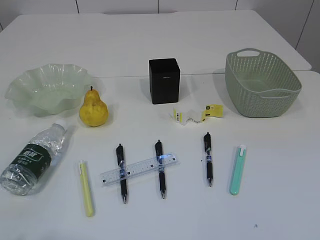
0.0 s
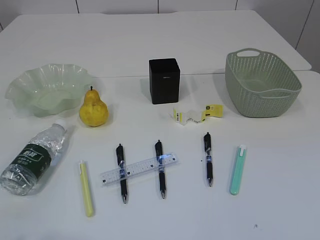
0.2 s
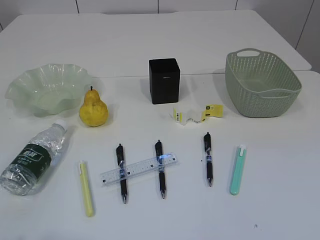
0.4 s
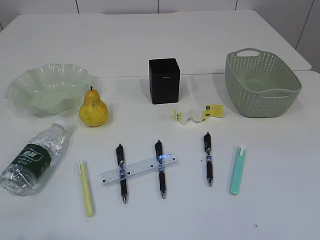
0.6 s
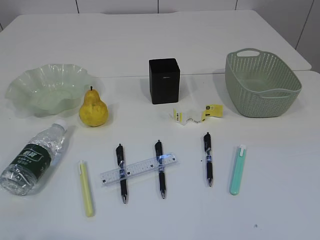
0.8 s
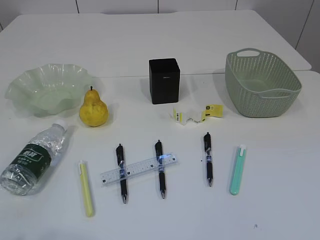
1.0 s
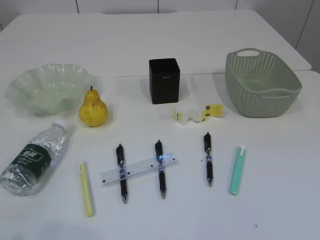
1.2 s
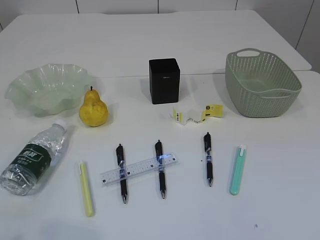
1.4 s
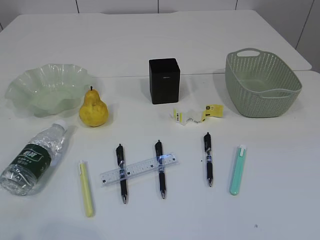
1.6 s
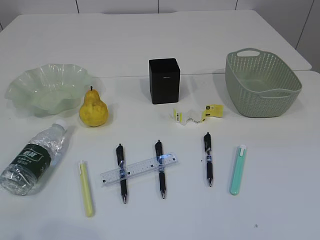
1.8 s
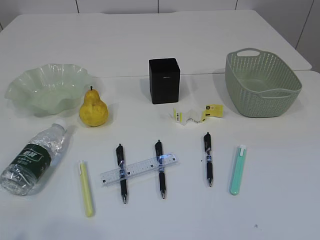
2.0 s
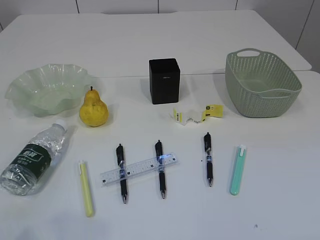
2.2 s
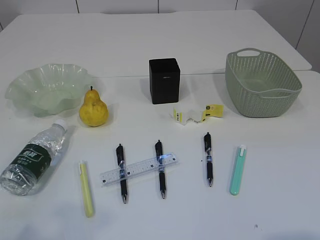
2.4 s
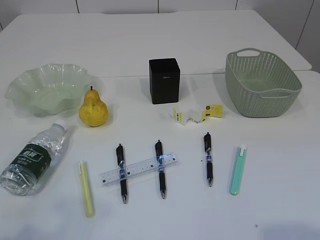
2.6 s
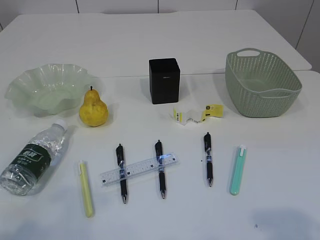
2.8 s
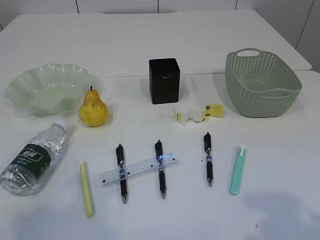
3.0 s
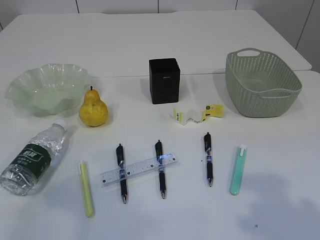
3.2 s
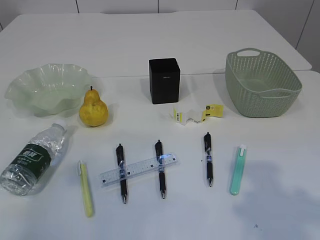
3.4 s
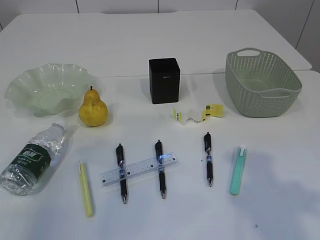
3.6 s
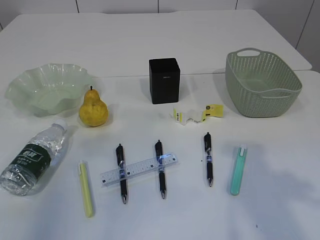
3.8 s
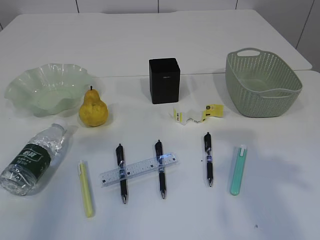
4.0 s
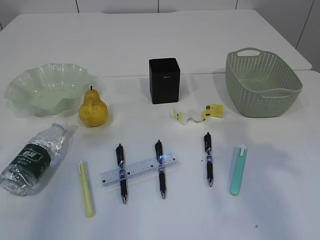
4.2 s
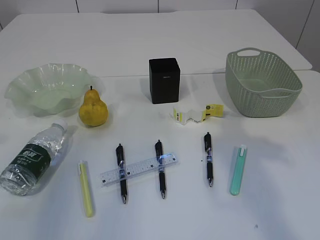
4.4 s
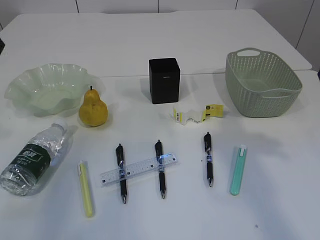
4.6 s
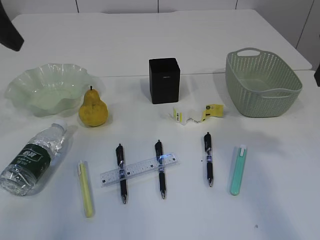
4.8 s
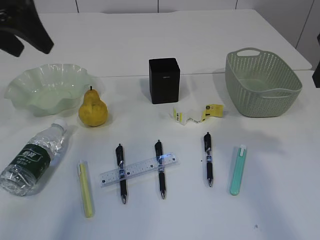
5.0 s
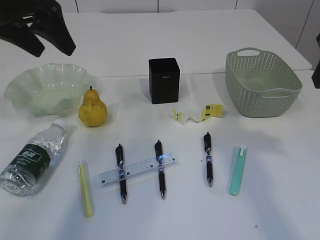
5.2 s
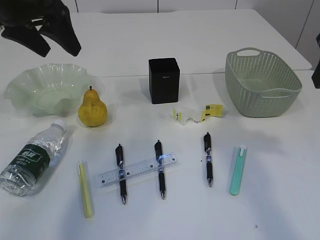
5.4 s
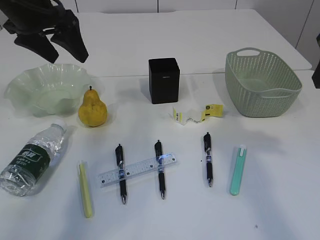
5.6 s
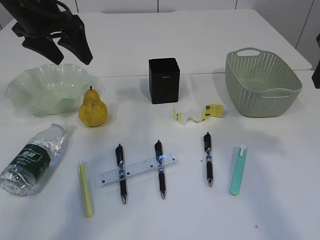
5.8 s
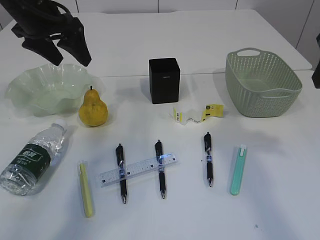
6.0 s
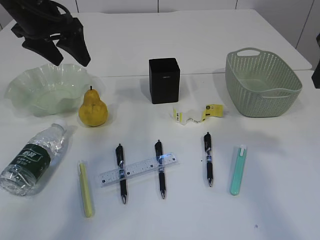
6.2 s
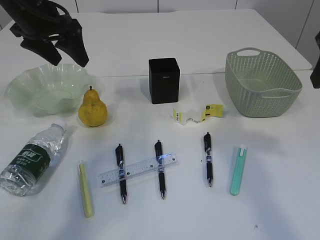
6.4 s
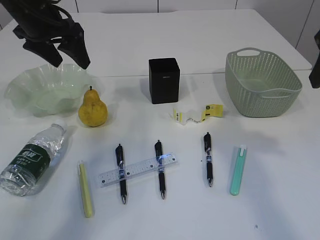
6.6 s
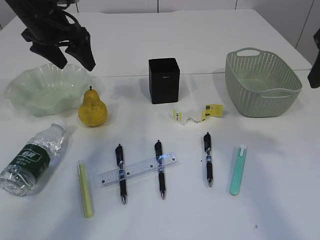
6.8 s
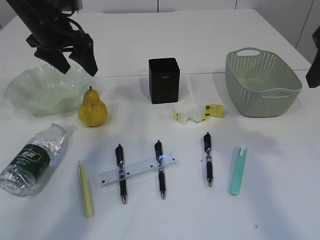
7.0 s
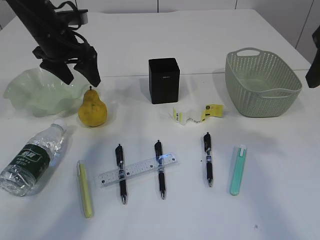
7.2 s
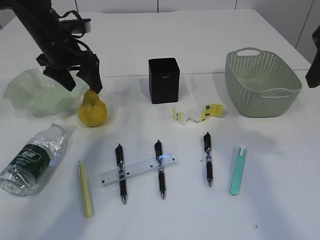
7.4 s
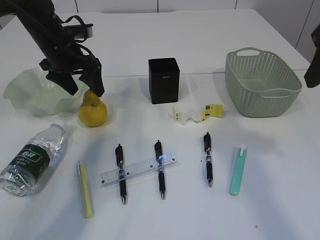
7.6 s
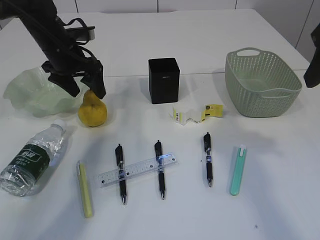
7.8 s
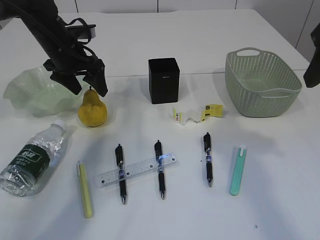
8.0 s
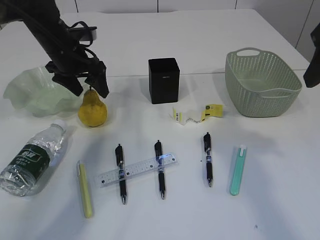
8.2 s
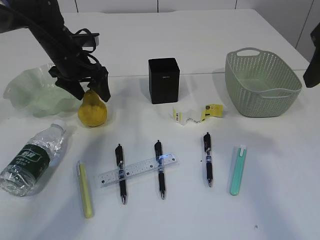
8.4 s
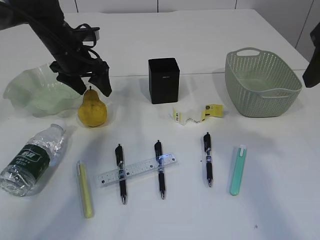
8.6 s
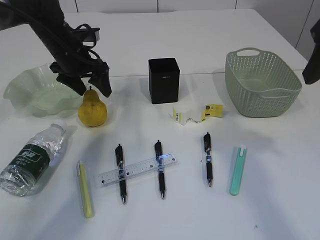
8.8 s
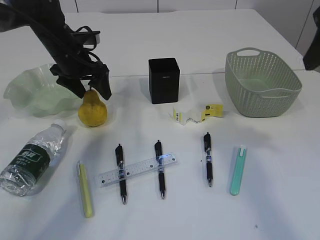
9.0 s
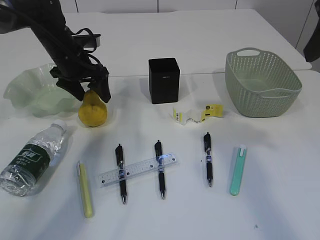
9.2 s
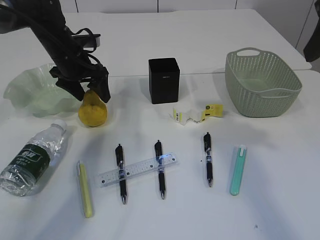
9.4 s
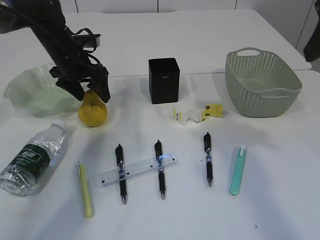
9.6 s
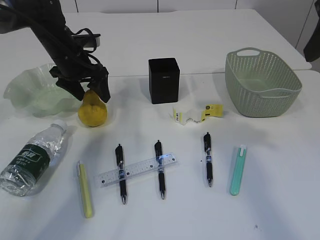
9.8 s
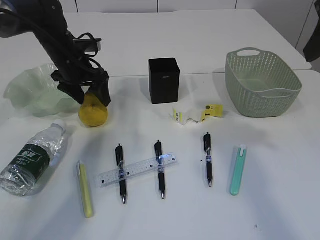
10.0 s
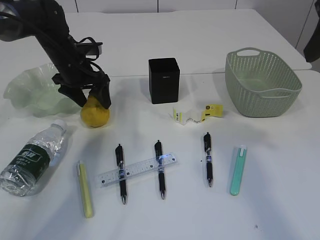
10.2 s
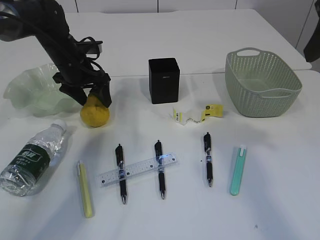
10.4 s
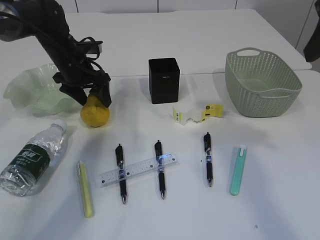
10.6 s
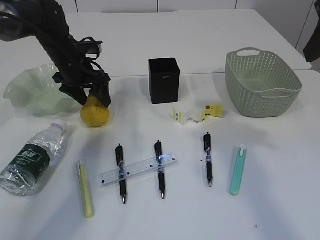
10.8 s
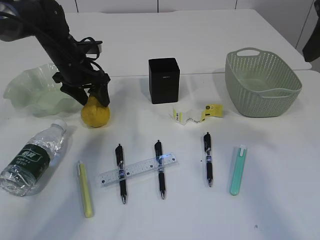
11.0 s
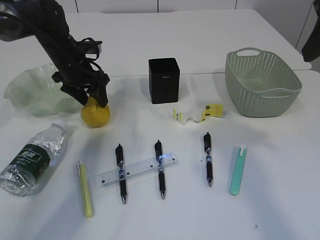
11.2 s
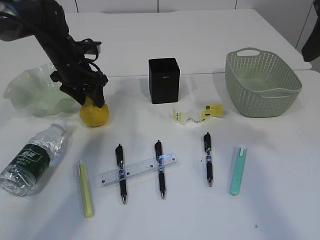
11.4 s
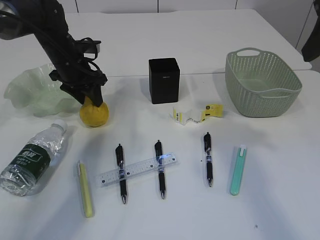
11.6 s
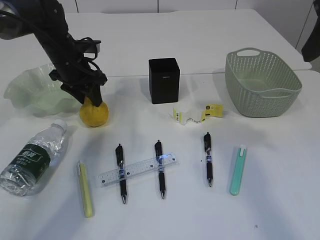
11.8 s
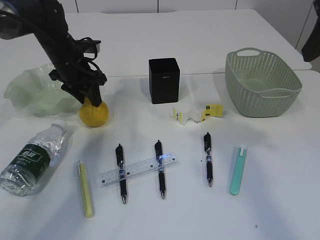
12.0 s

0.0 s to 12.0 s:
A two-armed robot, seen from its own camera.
1.6 to 3.0 s: The grippers both shift forward by some 5 cm.
3.0 to 4.4 s: The right gripper goes about 15 cm forward. Meanwhile the left gripper is displaced forward and upward by some 20 cm.
4.4 to 6.0 s: The left gripper moves forward, downward and to the right, roughly 20 cm.
6.0 to 7.6 s: The left gripper heads downward, covering roughly 10 cm.
7.6 to 10.4 s: The grippers make only small movements.
10.4 to 12.0 s: The left gripper closes up.

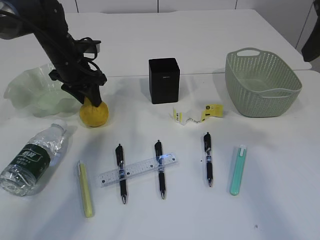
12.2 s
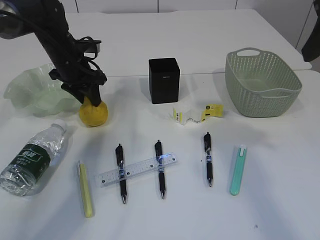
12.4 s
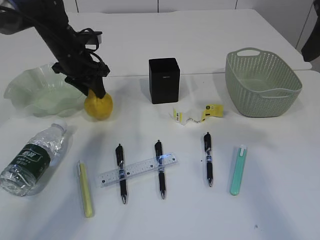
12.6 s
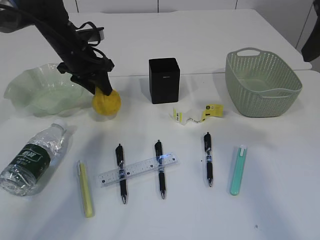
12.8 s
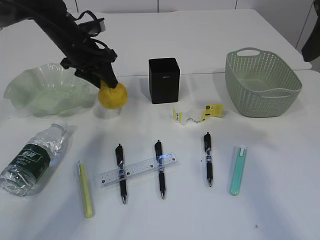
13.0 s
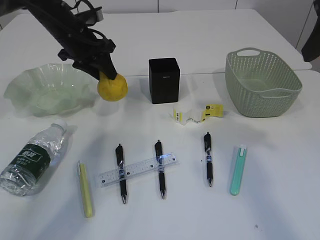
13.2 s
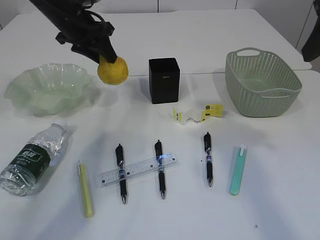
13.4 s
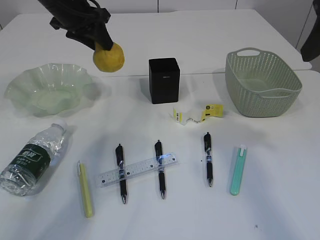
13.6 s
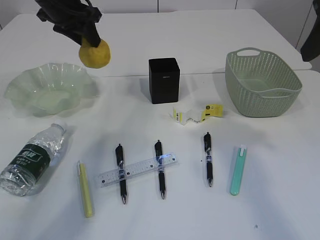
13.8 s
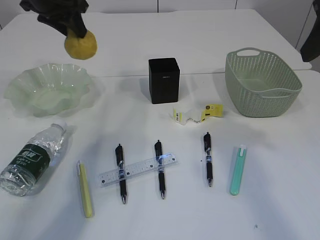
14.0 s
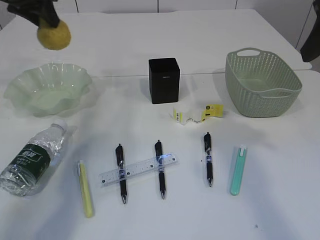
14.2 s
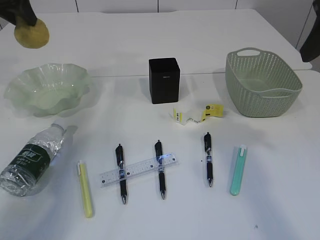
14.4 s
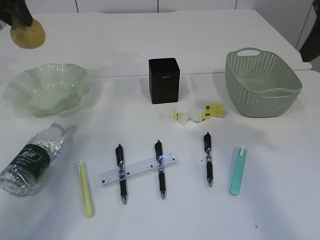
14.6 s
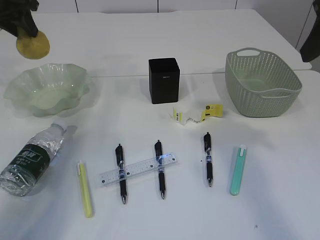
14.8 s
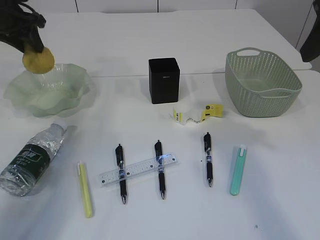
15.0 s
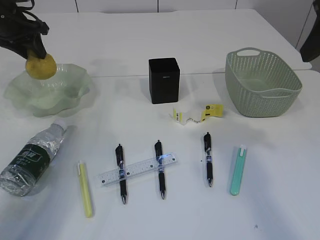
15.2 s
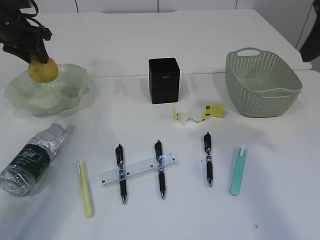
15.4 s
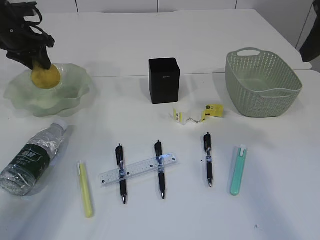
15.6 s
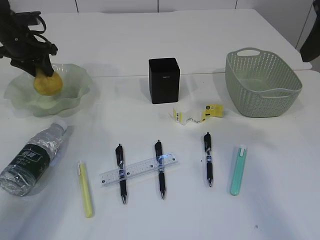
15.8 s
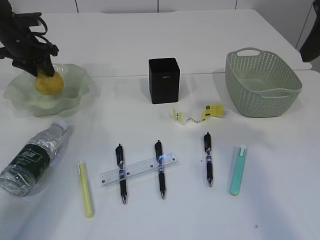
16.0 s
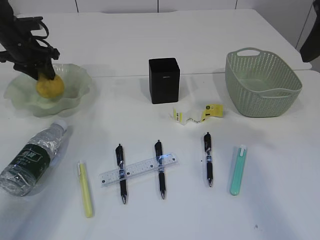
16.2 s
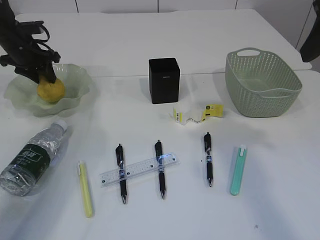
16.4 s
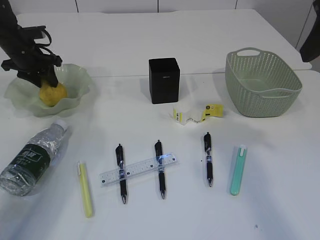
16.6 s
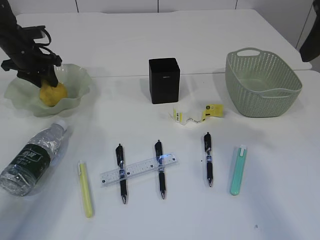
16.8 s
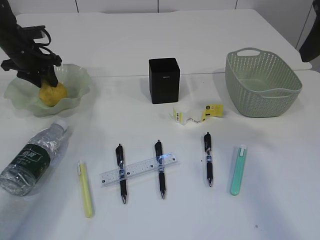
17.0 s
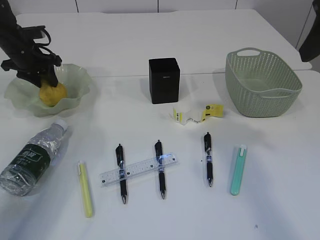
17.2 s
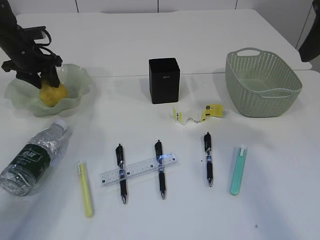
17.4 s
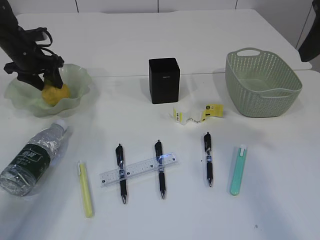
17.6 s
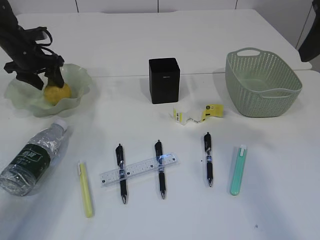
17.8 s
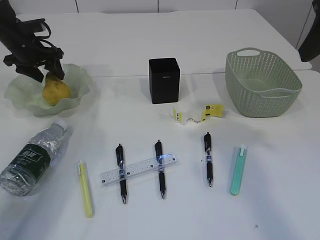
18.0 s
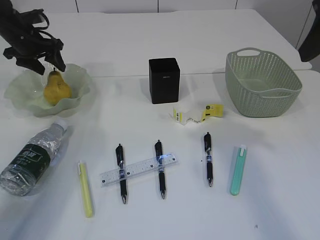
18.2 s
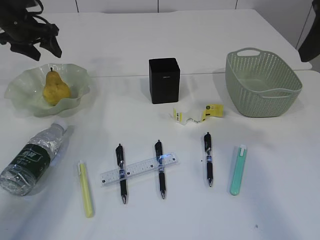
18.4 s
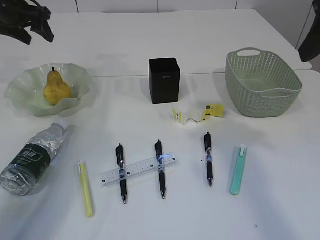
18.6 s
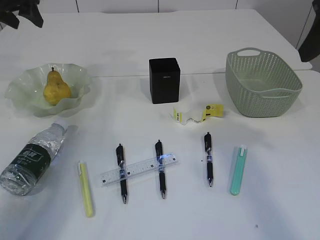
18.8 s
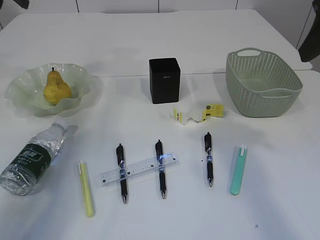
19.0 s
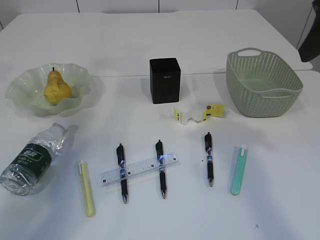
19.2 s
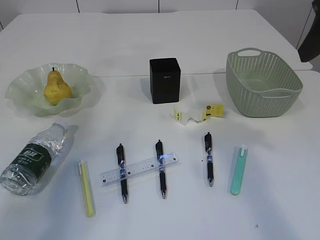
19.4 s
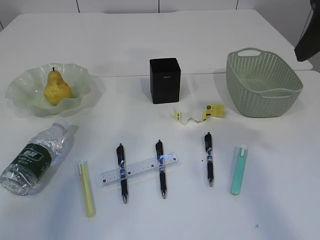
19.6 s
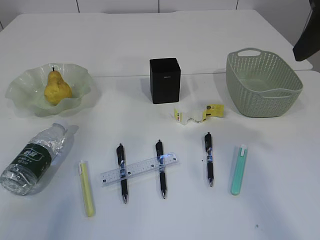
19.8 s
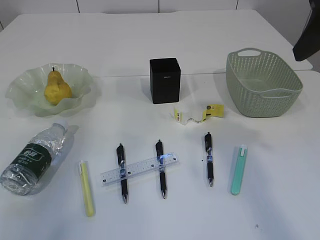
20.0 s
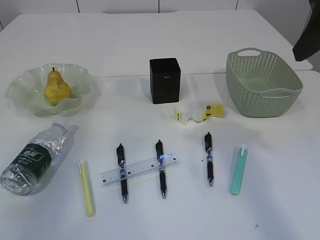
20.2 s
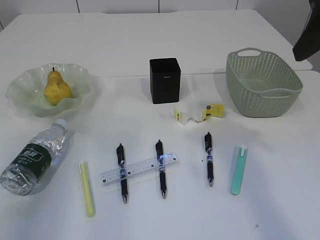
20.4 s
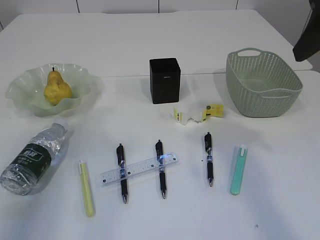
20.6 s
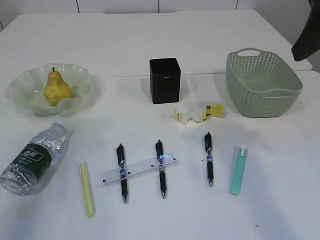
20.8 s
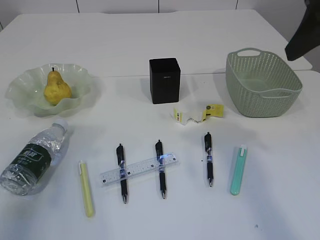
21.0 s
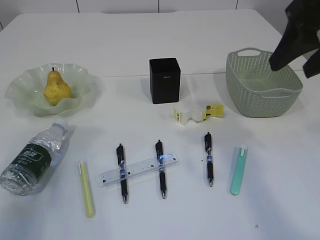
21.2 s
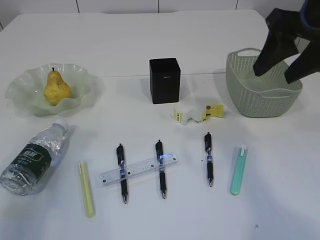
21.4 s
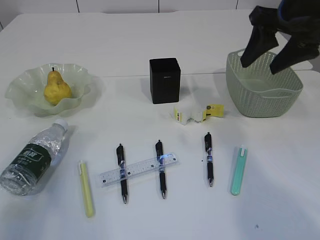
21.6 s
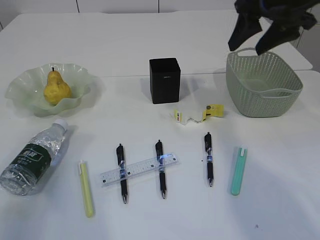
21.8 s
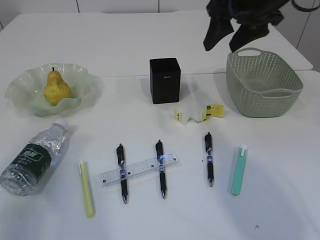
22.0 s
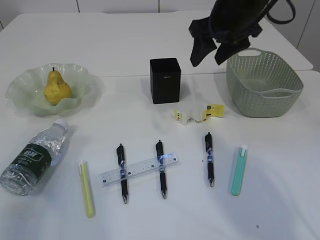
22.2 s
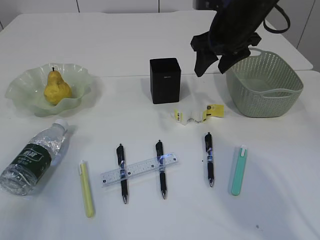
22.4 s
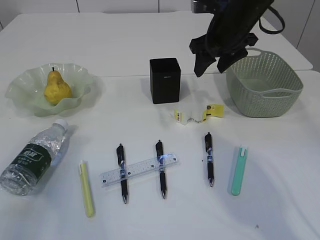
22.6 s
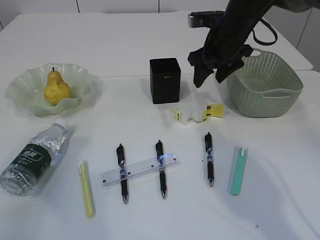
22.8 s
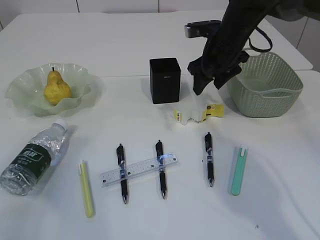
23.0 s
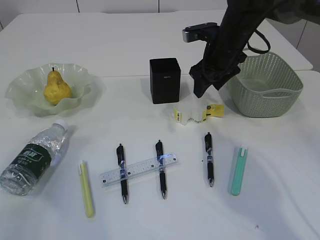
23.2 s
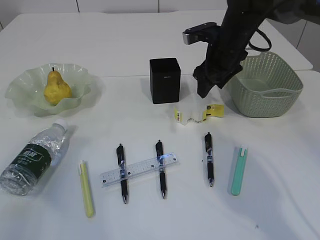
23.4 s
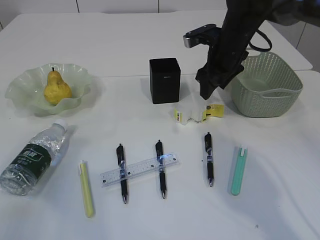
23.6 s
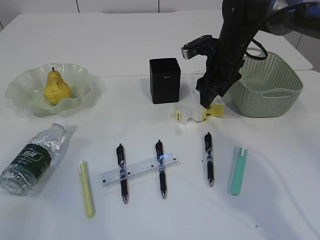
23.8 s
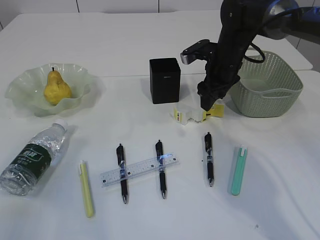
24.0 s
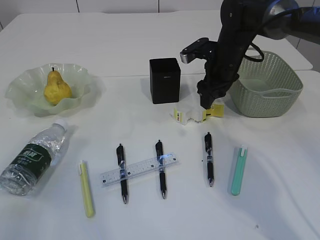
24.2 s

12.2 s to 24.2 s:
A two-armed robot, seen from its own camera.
Step, 13.6 to 18.2 s: Place the pear in the plate.
12.2 to 13.8 s: The left gripper moves upward, roughly 15 cm.
13.8 to 15.2 s: The left gripper moves to the left, roughly 10 cm.
15.2 to 16.6 s: The left gripper is displaced downward by about 10 cm.
16.6 to 18.2 s: The left gripper opens its fingers.
18.2 to 19.8 s: The left gripper moves upward and backward, roughly 30 cm.
19.8 to 21.2 s: The left gripper is displaced downward and backward by some 25 cm.
21.2 to 22.6 s: The right gripper is displaced forward, downward and to the left by roughly 20 cm.
22.6 to 24.2 s: The right gripper moves downward, approximately 10 cm.
